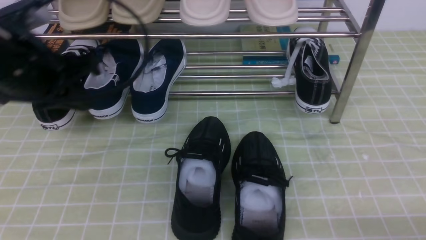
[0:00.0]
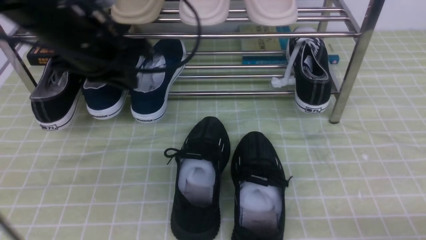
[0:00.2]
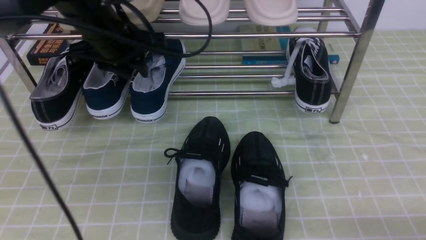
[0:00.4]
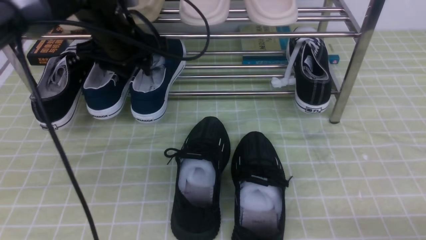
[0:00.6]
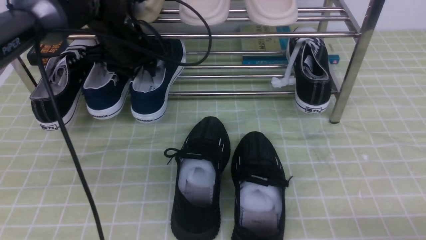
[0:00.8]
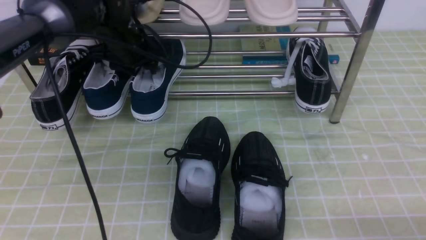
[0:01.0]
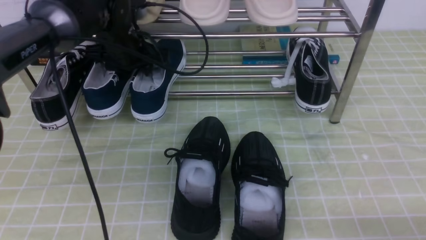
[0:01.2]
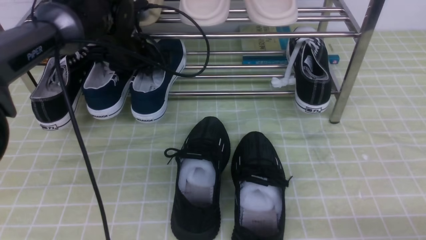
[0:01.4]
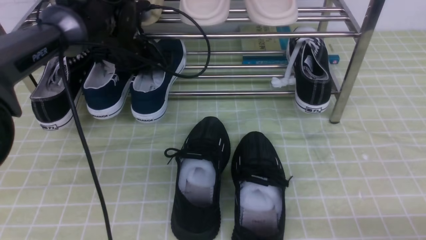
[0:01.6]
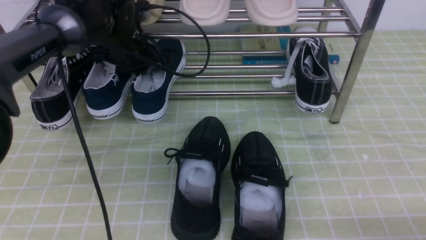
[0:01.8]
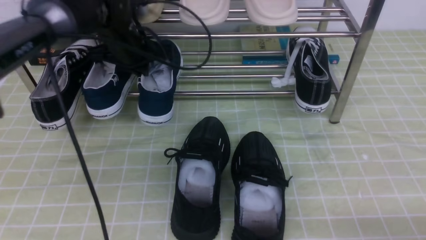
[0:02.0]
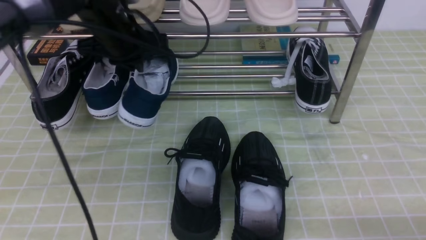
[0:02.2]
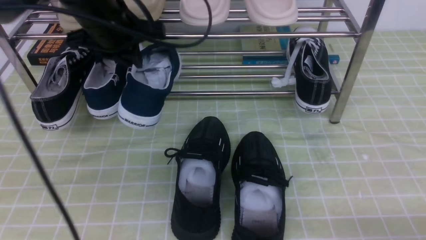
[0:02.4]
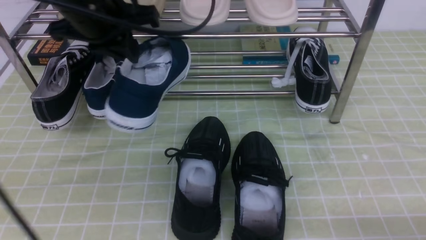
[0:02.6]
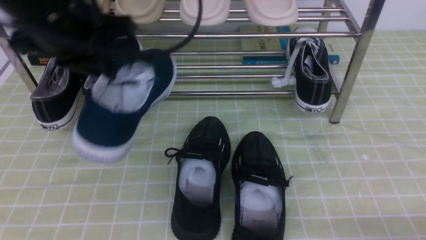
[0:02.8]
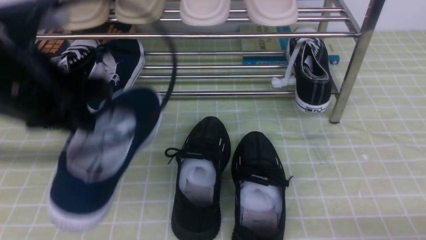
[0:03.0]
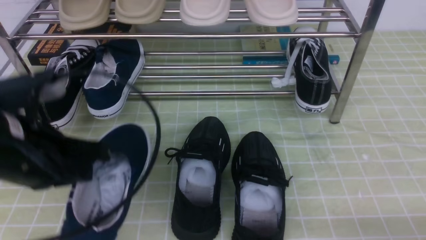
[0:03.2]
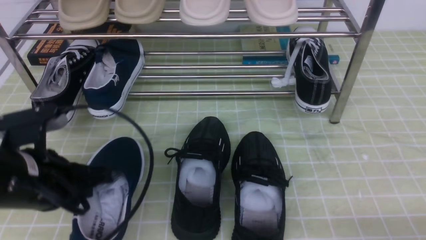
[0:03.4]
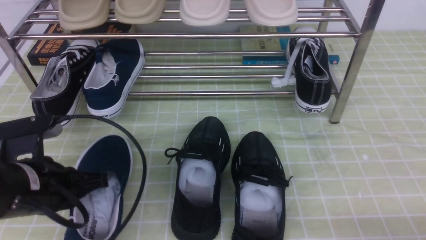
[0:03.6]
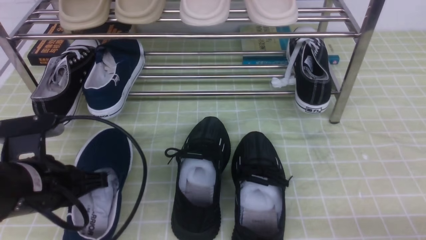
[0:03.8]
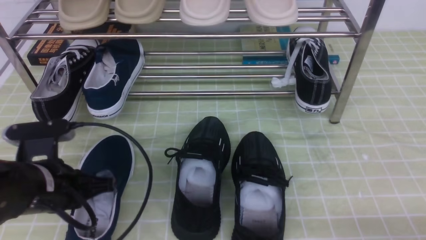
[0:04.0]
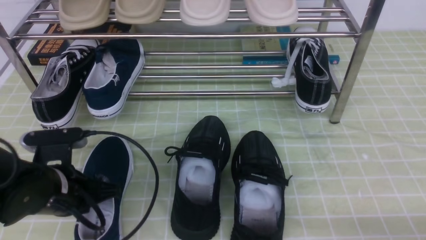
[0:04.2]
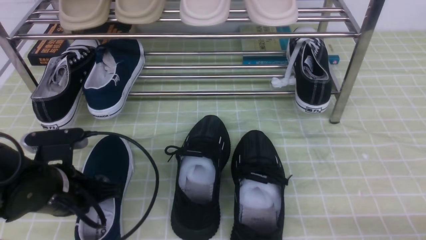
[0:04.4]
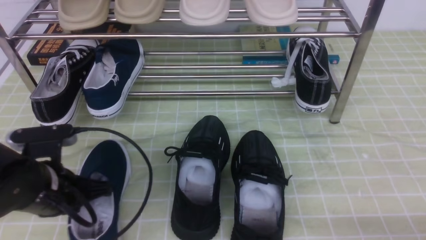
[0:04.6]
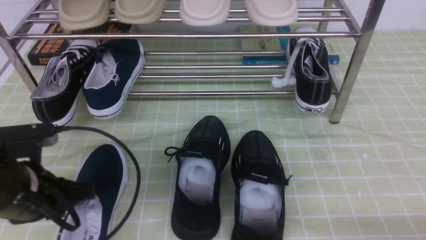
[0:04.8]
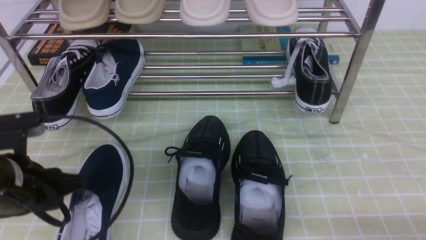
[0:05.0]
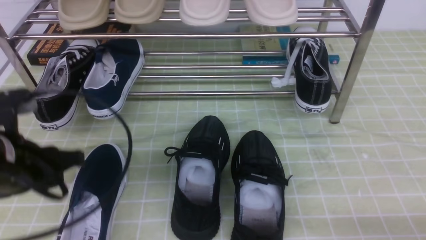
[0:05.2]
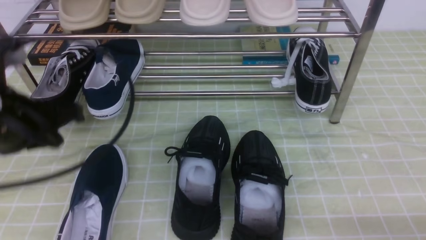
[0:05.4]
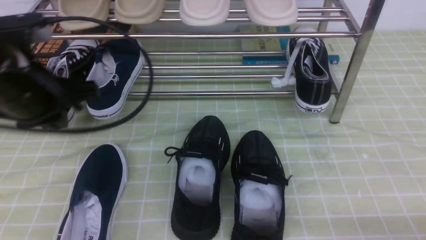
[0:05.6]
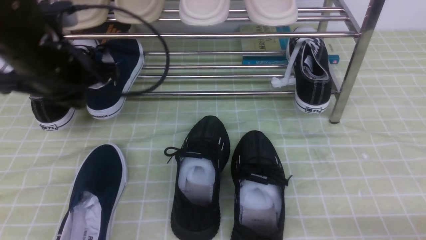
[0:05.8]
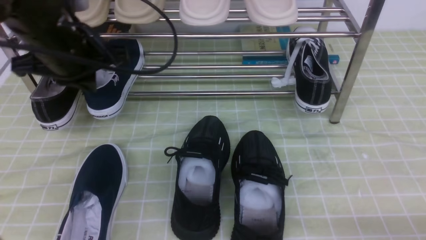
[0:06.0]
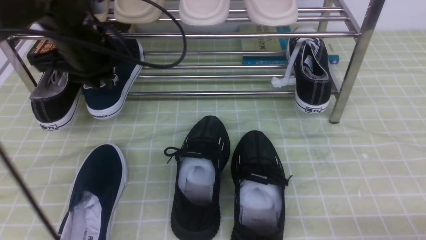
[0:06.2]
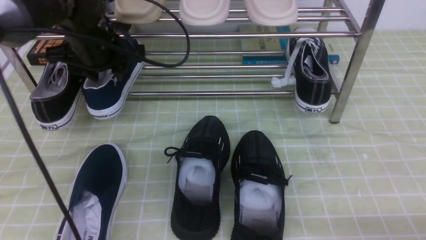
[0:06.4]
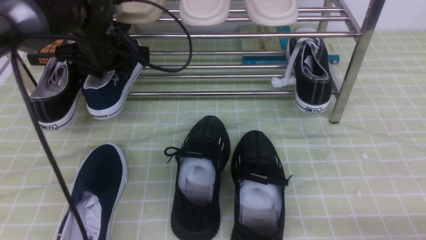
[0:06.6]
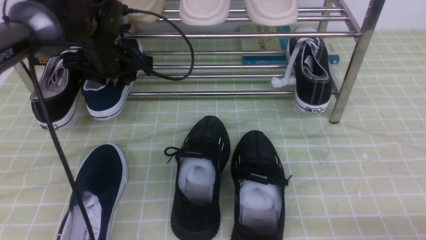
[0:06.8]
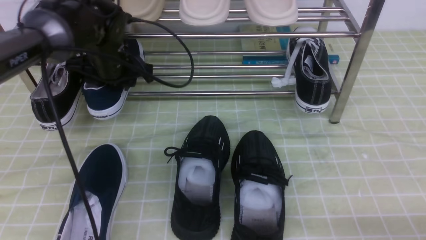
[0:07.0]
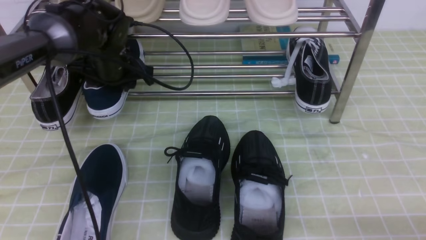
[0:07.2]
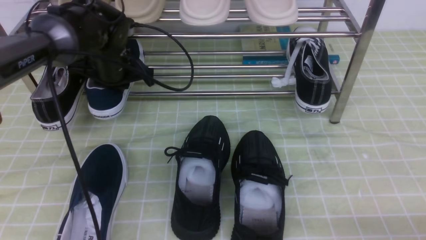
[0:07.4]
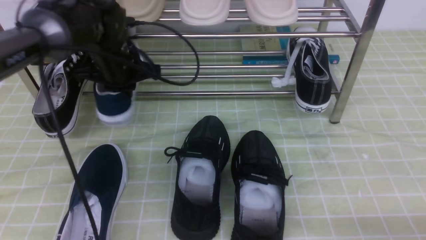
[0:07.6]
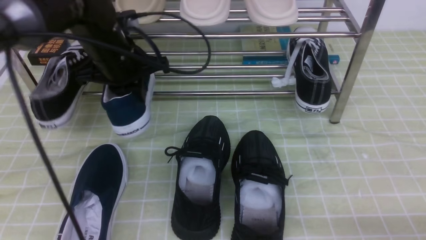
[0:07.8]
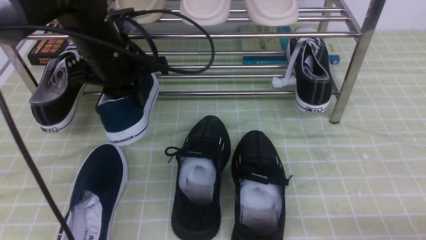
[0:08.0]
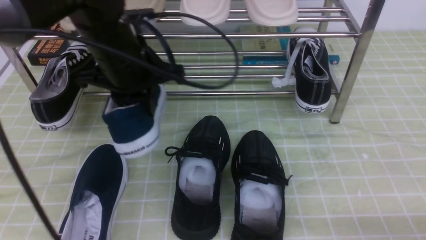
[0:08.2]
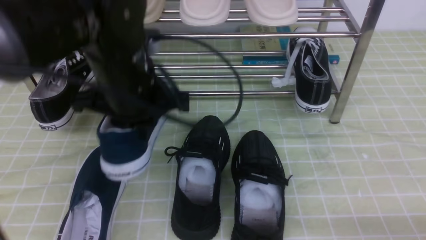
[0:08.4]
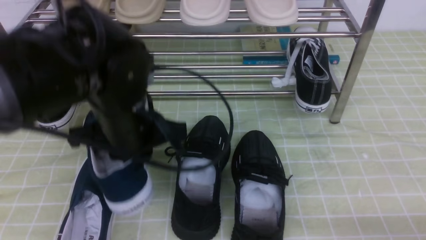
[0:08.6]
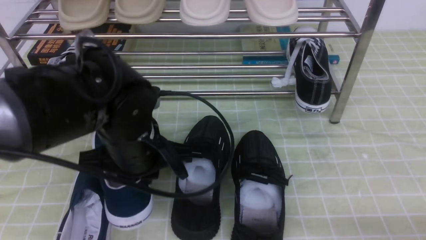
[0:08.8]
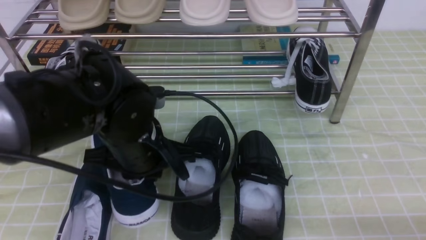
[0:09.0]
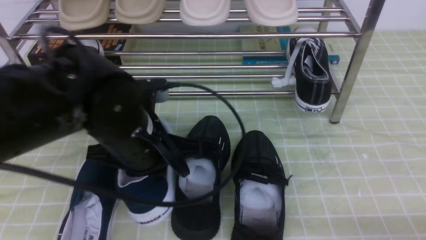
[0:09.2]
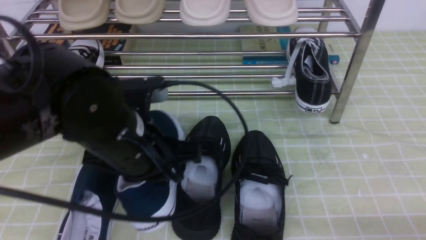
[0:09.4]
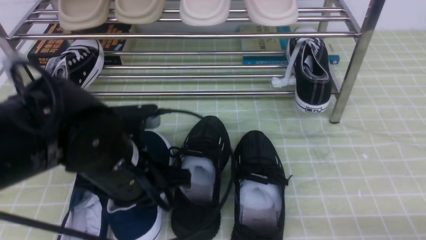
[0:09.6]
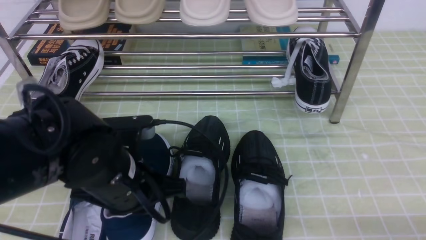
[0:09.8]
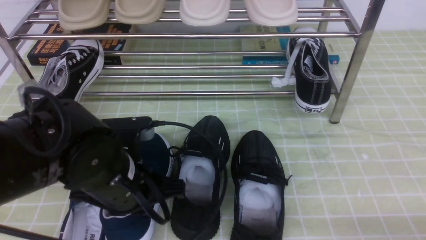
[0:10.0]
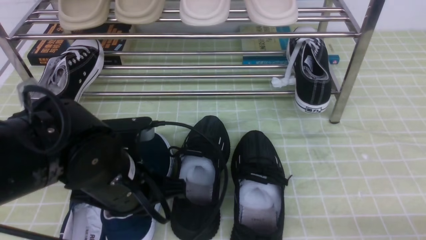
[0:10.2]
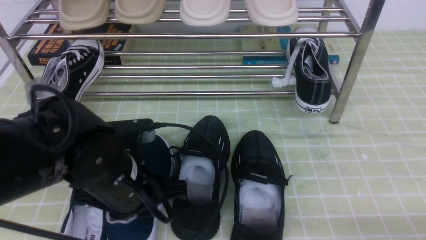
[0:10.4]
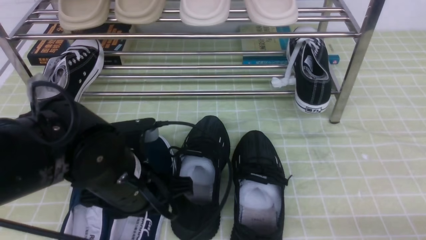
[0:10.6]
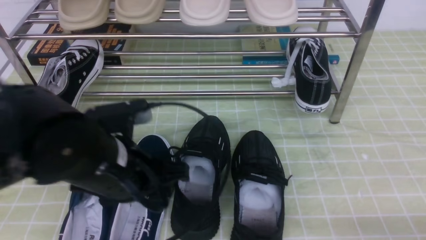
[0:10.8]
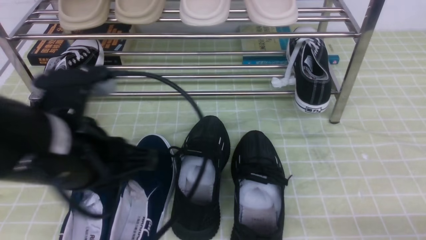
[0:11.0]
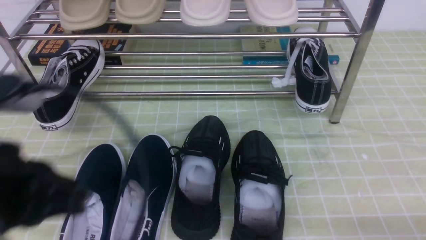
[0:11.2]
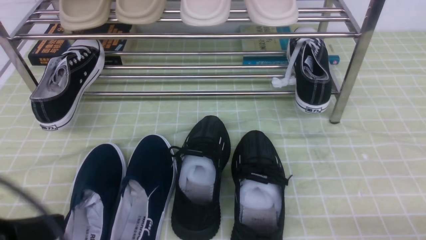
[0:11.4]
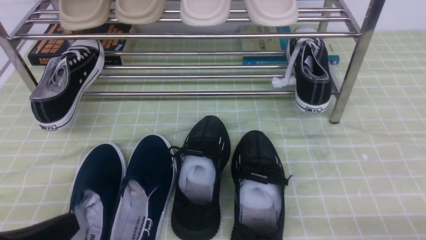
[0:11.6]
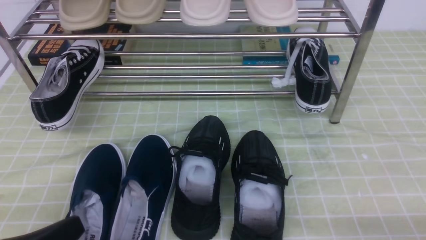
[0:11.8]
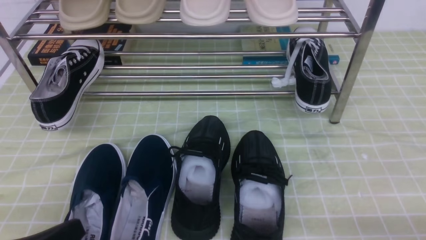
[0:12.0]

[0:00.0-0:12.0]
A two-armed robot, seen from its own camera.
Step, 0:00.0 to 0:02.0: use the left arm to clamp a shoe in the middle of the shoe rack.
Step, 0:02.2 to 0:05.0: Use your left arm to remove the clamped shoe from the shoe rack and put it down.
Step, 0:05.4 to 0:07.4: use the left arm to clamp a shoe in the middle of the shoe rack.
Step, 0:07.8 to 0:10.8: Use your left arm to remove the clamped shoe from the shoe rack and put it down.
0:00.0 to 0:01.6: The left gripper moves forward and downward, approximately 20 cm, and opens, then closes again.
0:01.6 to 0:03.0: The left gripper moves backward, some 25 cm.
0:03.0 to 0:04.4: The left gripper moves downward, approximately 15 cm.
0:04.4 to 0:06.0: The left gripper heads upward and forward, covering approximately 20 cm, and opens, then closes once more.
0:06.0 to 0:07.6: The left gripper goes about 10 cm forward and downward, and opens, then closes again.
0:07.6 to 0:09.0: The left gripper moves backward, roughly 15 cm.
0:09.0 to 0:10.4: The grippers stay close to where they were, moving slightly.
0:10.4 to 0:12.0: The left gripper moves backward and to the left, some 20 cm, and closes up.

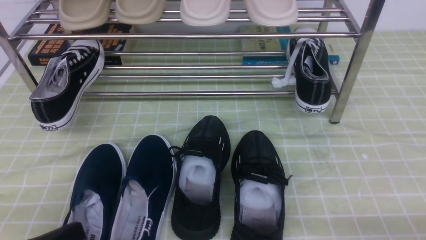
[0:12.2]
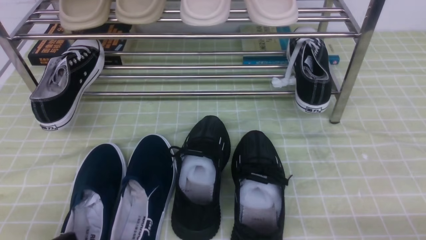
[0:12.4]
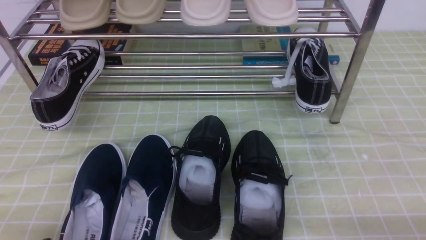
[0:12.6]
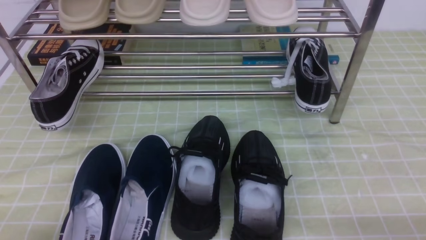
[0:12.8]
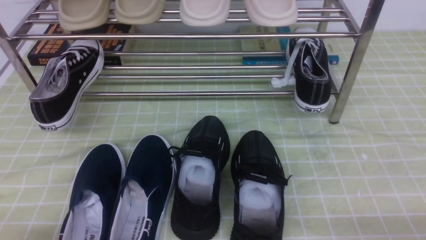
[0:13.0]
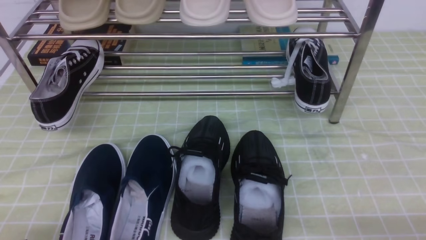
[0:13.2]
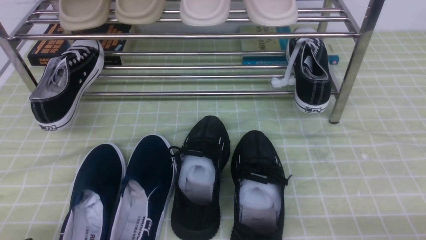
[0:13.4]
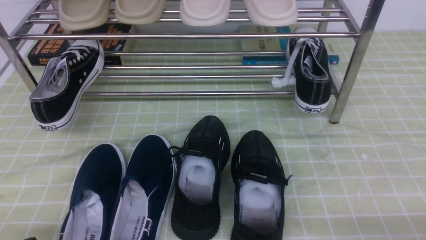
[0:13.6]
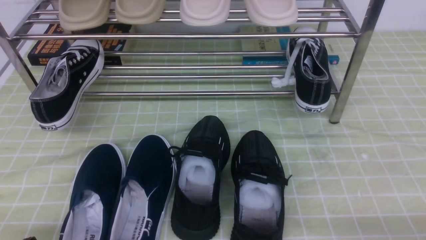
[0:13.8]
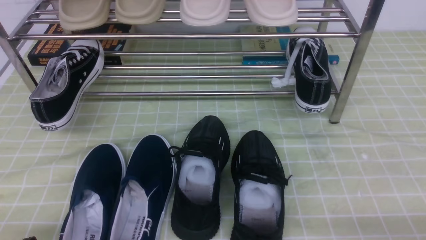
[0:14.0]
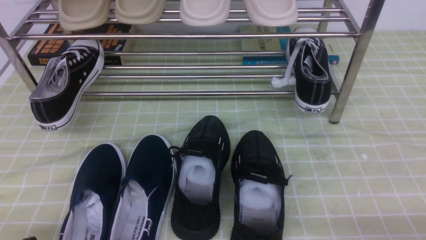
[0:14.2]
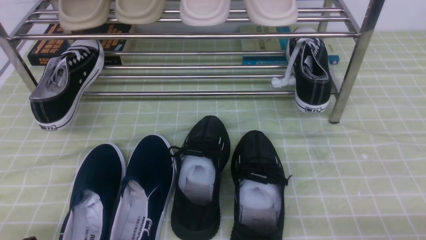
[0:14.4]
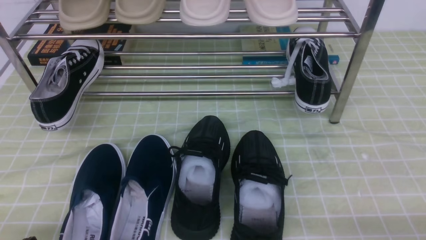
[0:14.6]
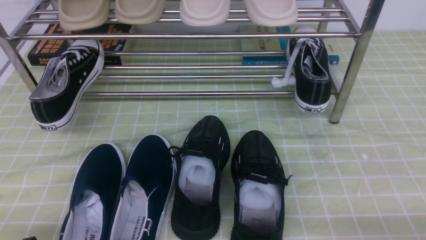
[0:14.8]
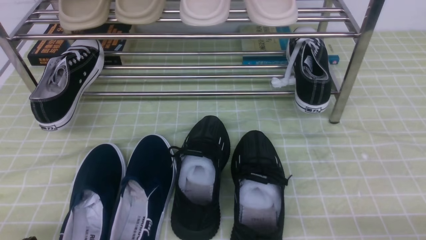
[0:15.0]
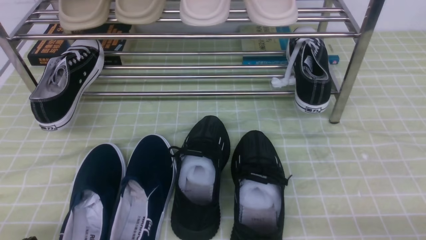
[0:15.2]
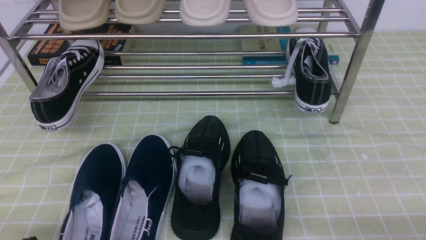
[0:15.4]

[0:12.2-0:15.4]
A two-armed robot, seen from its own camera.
0:12.2 to 0:13.8: The left gripper moves downward, about 5 cm.
0:13.8 to 0:15.4: Both grippers stay about where they are.
